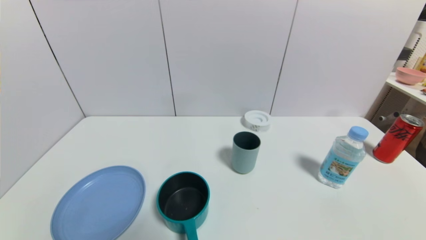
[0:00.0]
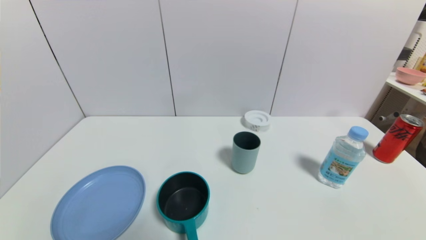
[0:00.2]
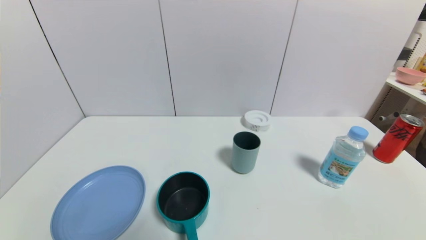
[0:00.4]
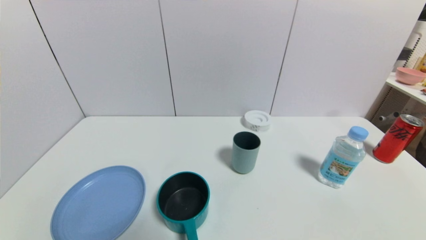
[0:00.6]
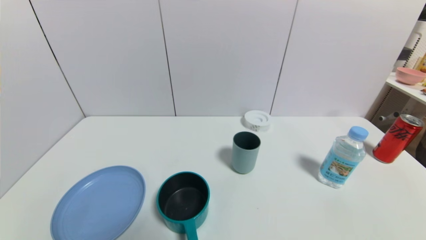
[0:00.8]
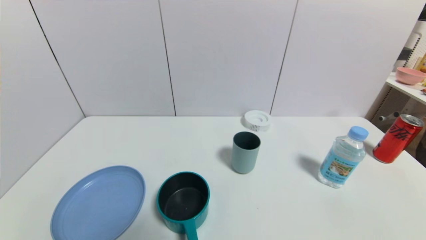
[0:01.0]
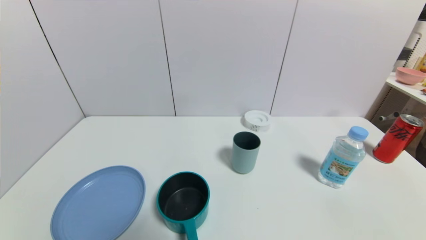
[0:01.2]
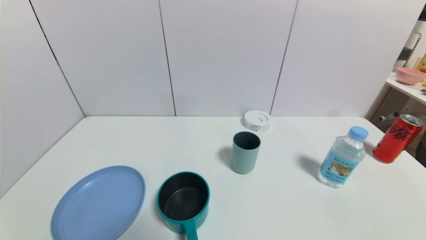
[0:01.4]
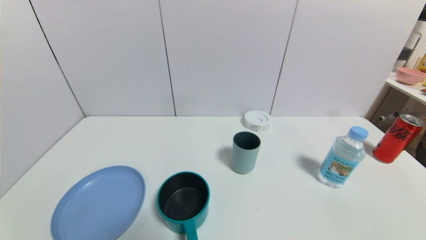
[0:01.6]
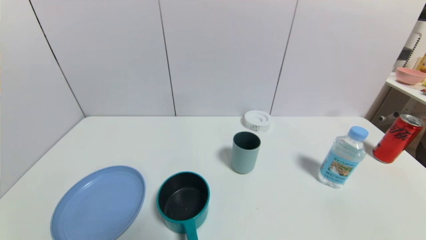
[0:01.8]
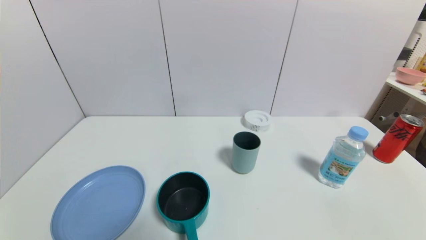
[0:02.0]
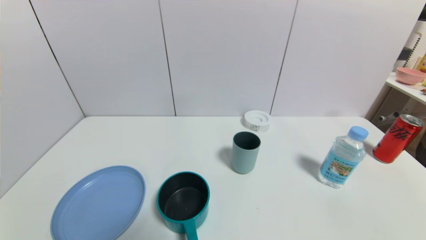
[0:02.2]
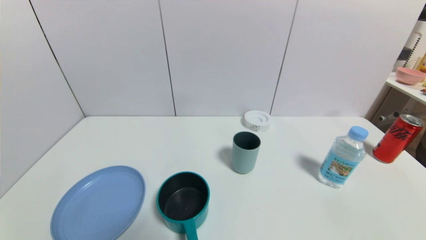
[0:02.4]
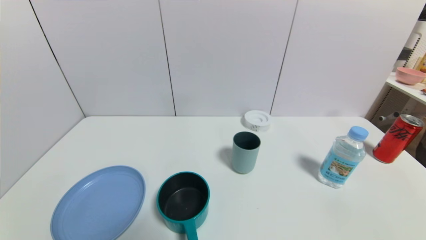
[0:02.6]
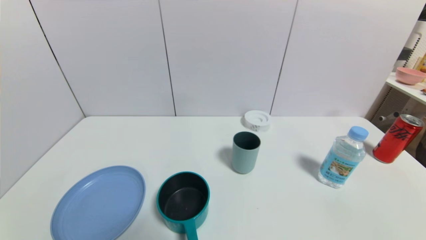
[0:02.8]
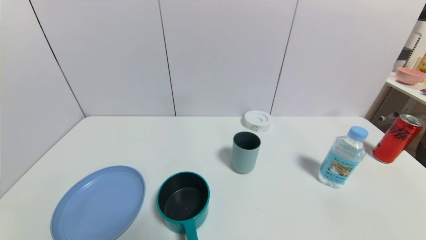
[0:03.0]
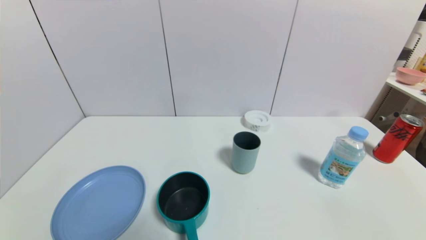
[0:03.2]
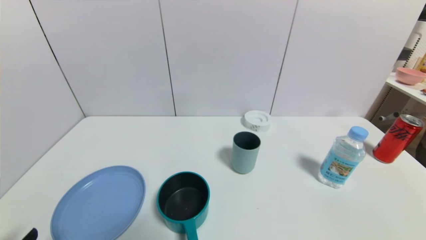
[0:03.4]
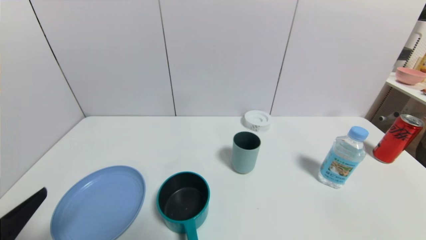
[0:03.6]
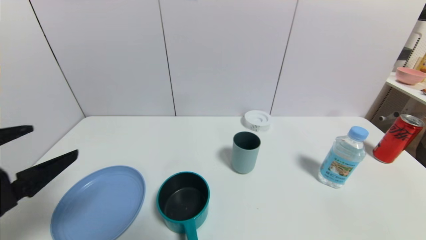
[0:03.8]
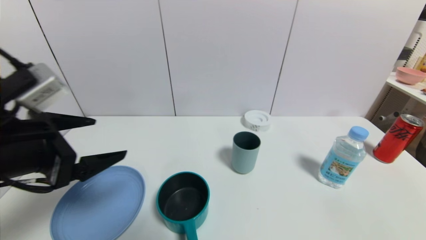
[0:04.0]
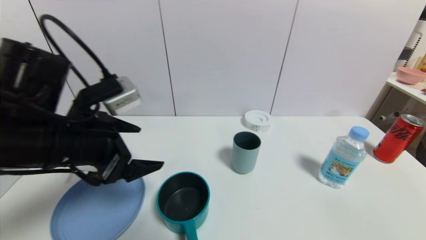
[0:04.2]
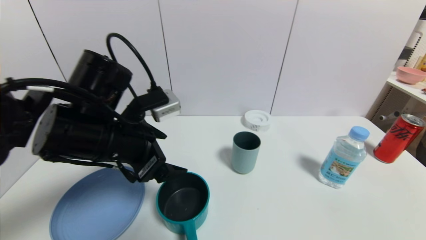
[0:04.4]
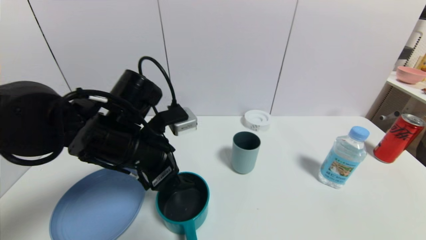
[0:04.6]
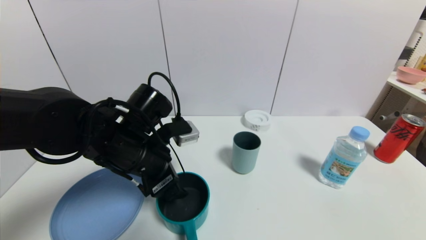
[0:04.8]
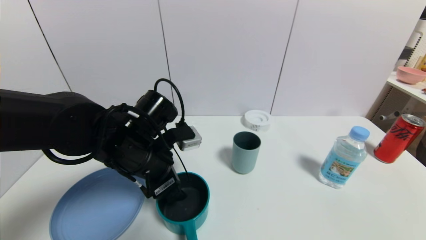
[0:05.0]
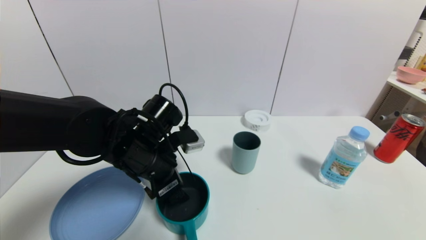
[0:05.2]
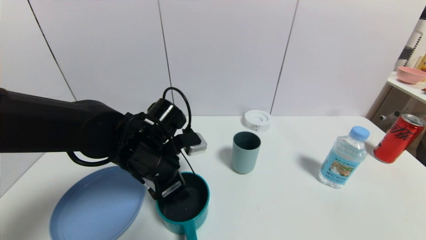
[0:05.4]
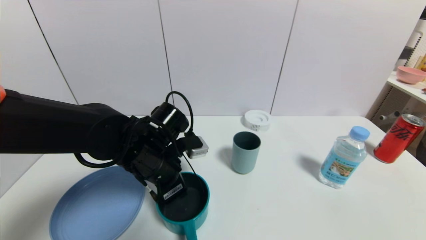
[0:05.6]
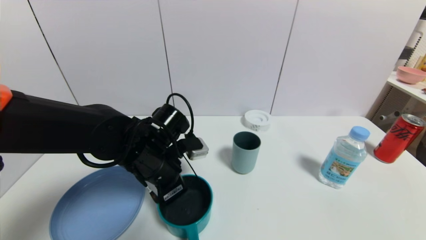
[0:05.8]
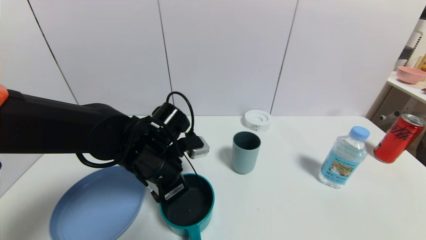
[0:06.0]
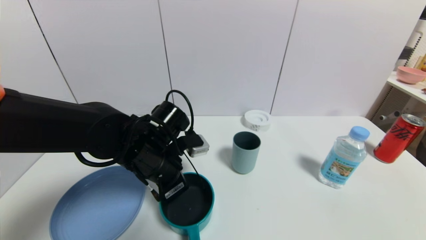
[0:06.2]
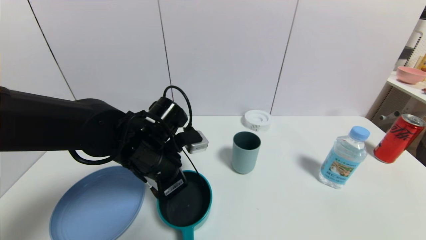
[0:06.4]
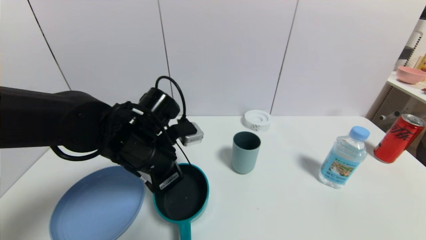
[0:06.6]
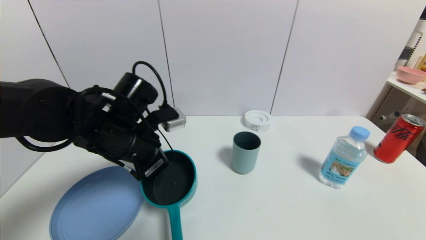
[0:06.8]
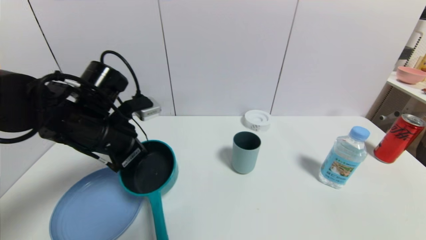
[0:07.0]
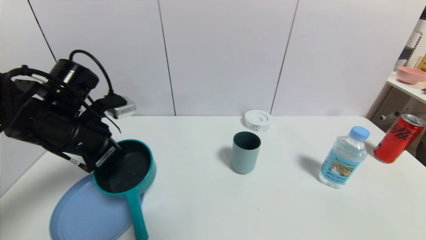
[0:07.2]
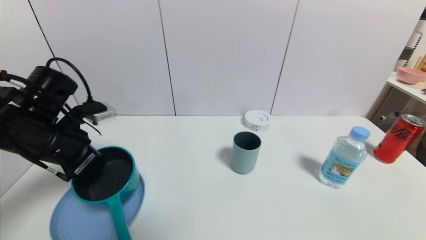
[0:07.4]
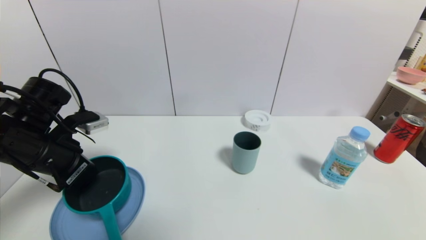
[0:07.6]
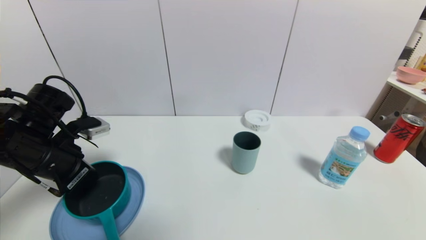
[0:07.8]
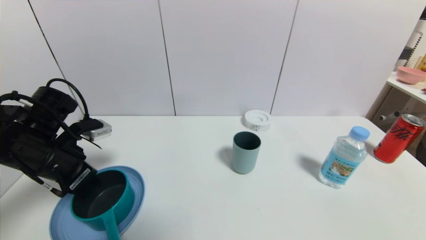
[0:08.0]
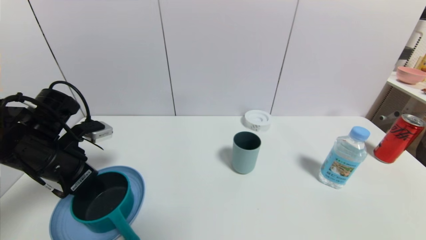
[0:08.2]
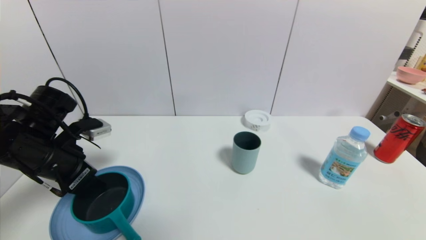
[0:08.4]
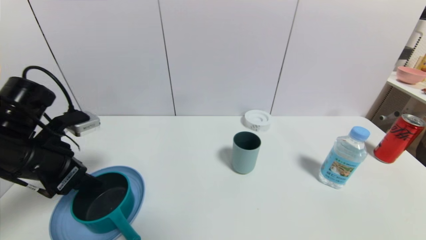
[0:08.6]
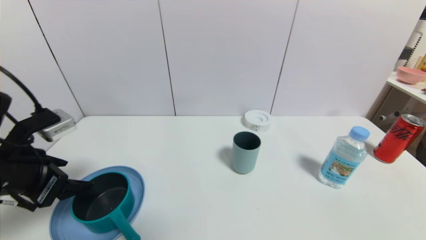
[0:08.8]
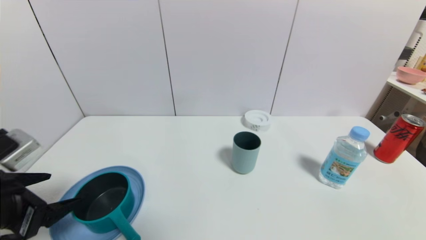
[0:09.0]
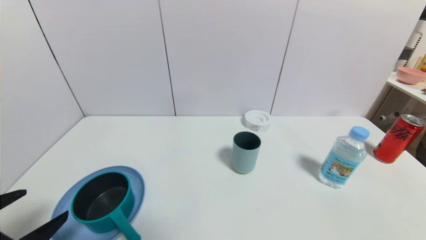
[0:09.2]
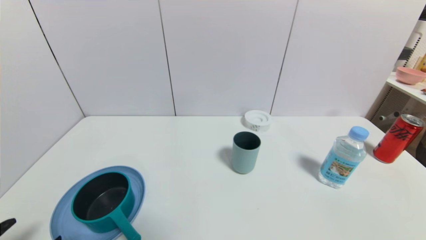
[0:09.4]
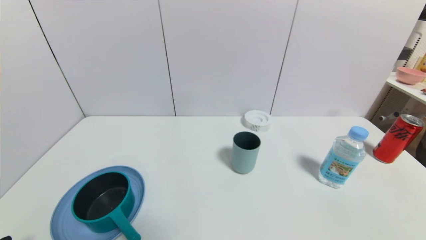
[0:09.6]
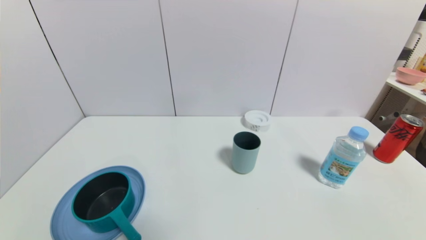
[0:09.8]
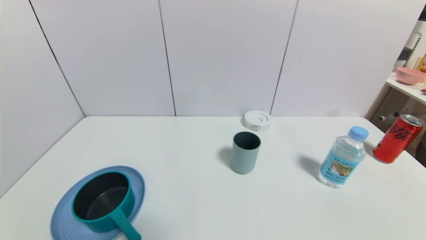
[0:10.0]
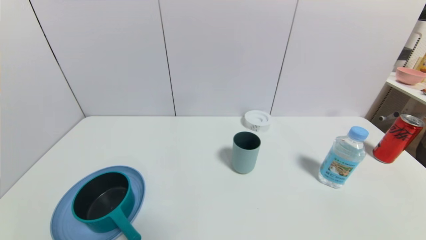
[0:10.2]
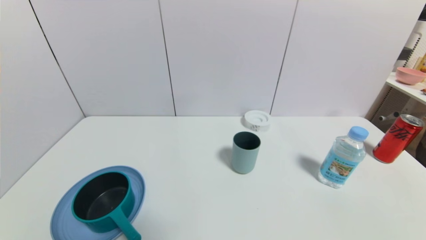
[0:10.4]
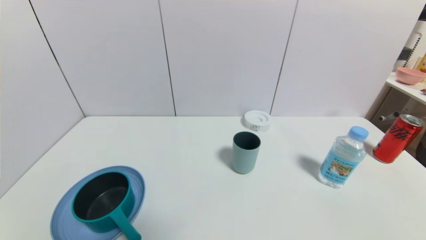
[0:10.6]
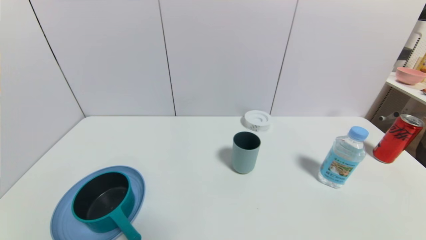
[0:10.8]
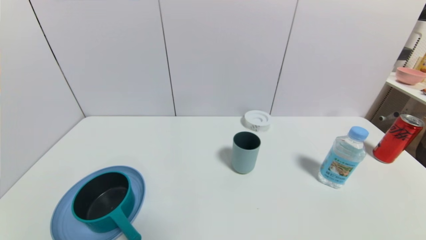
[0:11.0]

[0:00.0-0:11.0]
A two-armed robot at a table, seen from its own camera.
Task of the whole recording: use a gripper to pick the target object and place on the blue plate.
Step, 0:00.0 to 0:05.8: Grasp the blue pot with the left gripper.
Step, 0:06.0 to 0:09.2: Place the blue pot on the blue plate with the left gripper.
0:00.0 to 0:01.6: Both grippers stay about where they are.
0:03.2 to 0:04.8: The left gripper shifts roughly 30 cm forward, to the right and upward.
0:04.8 to 0:06.2: The left gripper closes its fingers.
0:06.2 to 0:07.8: The left gripper moves to the left, roughly 15 cm.
0:07.8 to 0:09.4: The left gripper is displaced backward by approximately 20 cm, and opens up.
